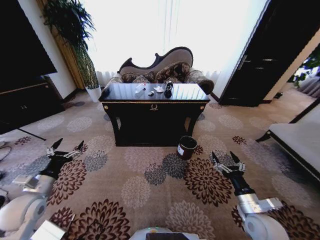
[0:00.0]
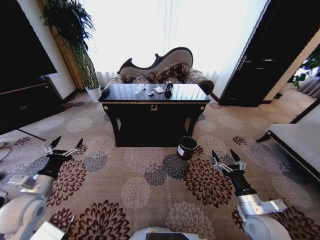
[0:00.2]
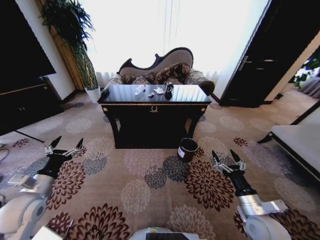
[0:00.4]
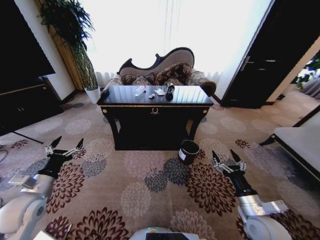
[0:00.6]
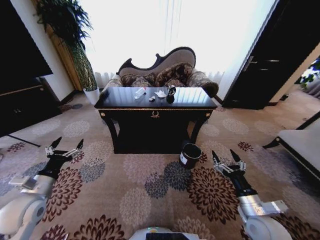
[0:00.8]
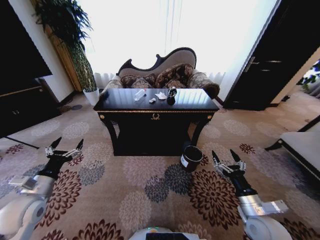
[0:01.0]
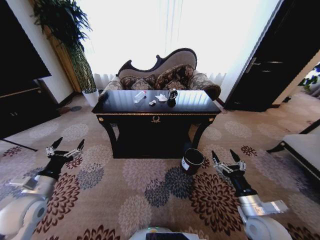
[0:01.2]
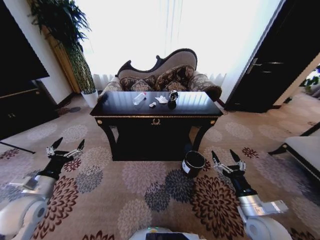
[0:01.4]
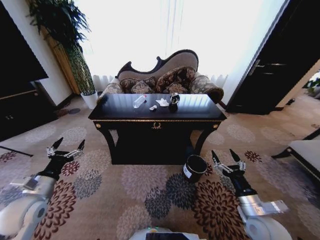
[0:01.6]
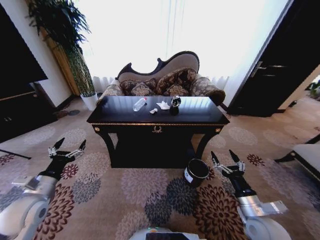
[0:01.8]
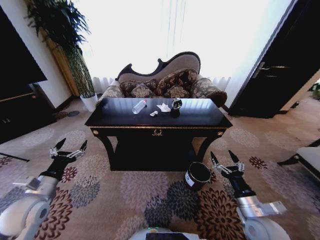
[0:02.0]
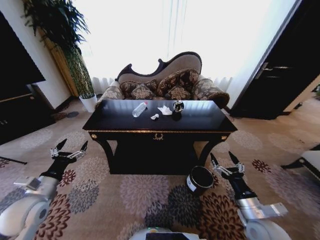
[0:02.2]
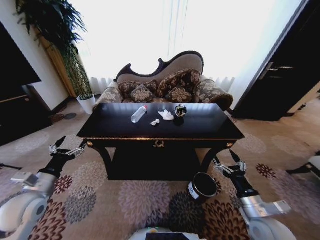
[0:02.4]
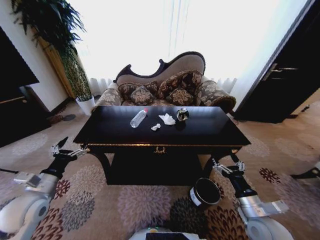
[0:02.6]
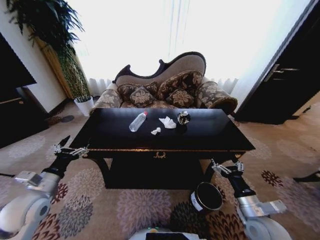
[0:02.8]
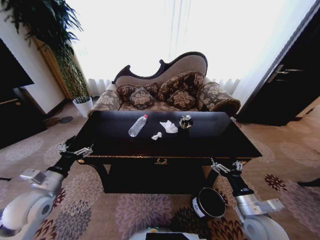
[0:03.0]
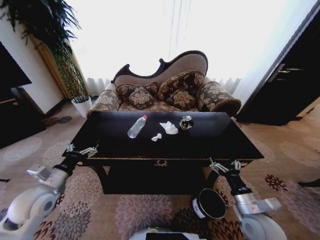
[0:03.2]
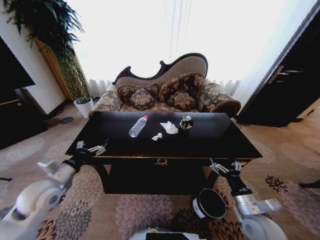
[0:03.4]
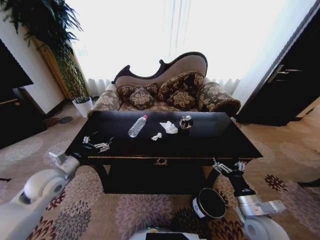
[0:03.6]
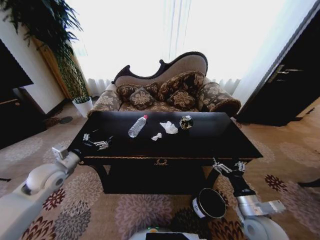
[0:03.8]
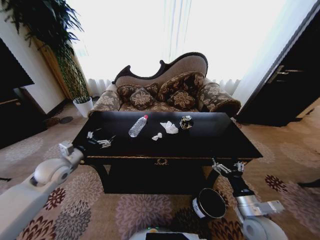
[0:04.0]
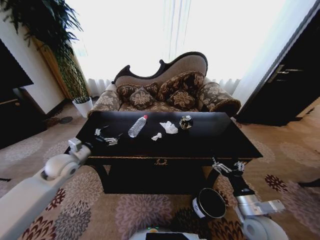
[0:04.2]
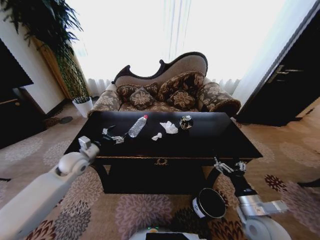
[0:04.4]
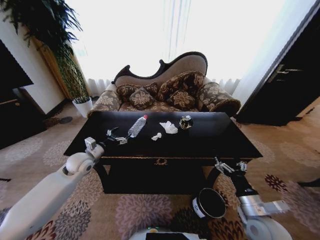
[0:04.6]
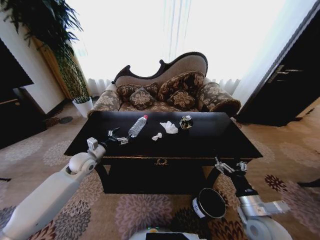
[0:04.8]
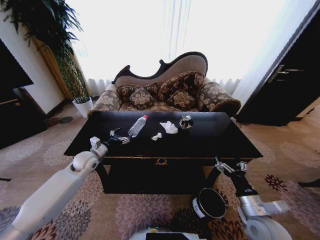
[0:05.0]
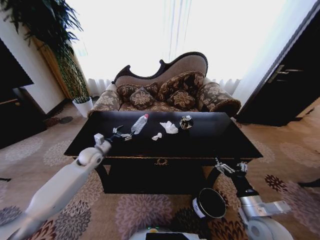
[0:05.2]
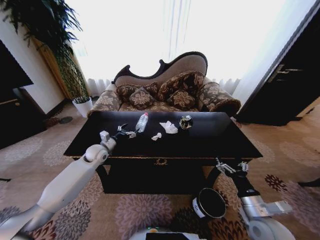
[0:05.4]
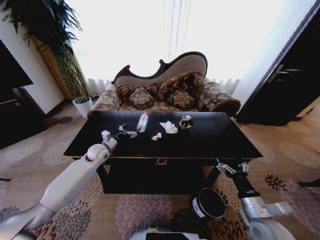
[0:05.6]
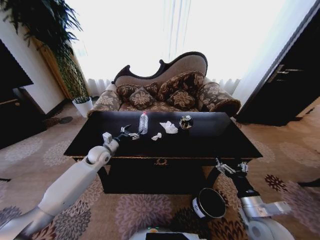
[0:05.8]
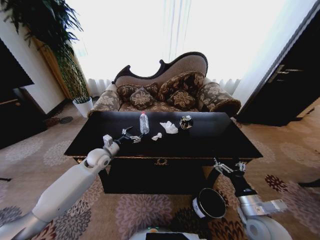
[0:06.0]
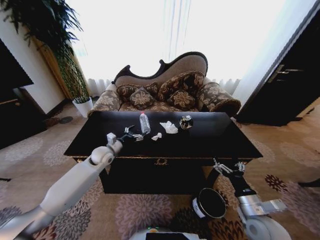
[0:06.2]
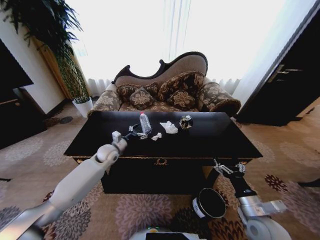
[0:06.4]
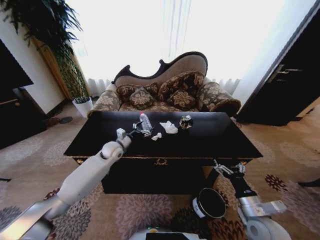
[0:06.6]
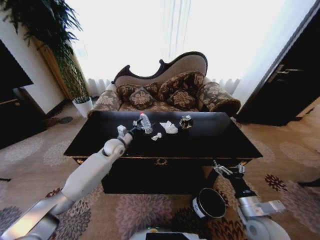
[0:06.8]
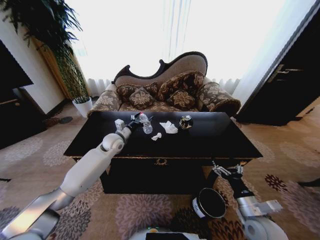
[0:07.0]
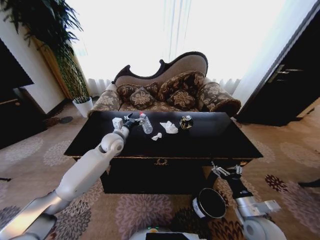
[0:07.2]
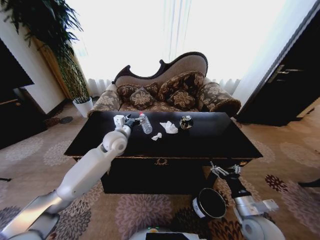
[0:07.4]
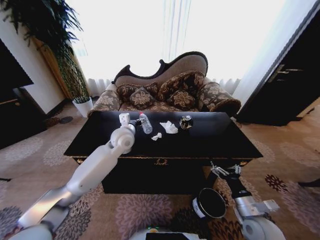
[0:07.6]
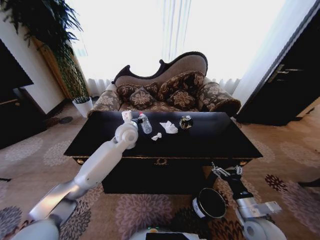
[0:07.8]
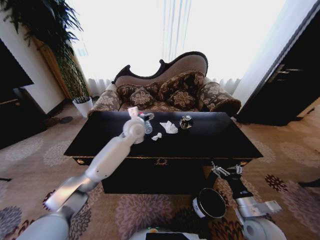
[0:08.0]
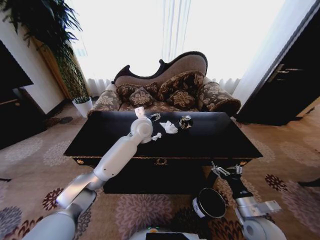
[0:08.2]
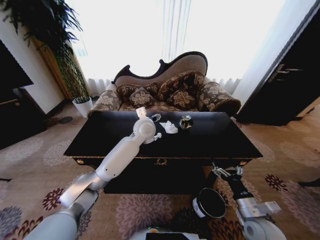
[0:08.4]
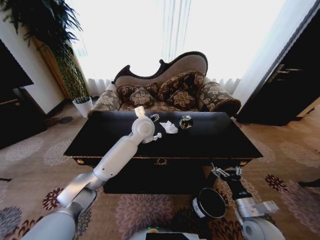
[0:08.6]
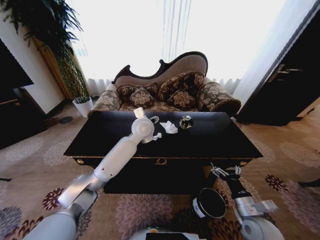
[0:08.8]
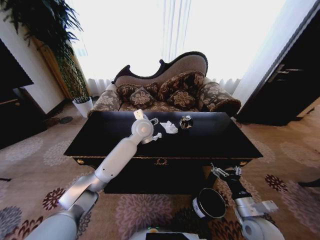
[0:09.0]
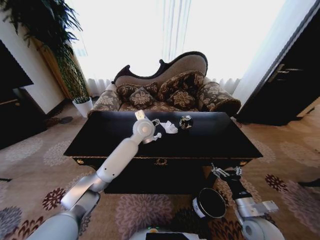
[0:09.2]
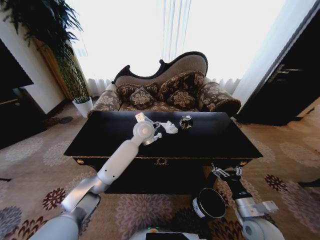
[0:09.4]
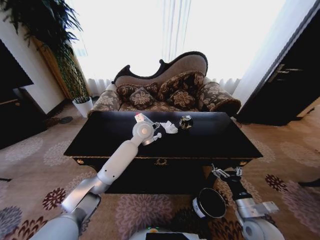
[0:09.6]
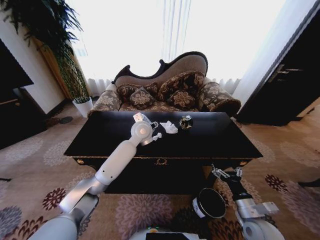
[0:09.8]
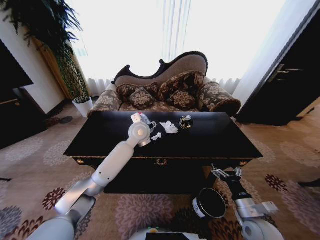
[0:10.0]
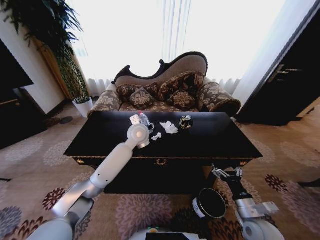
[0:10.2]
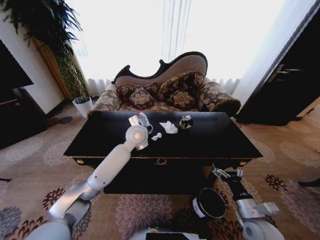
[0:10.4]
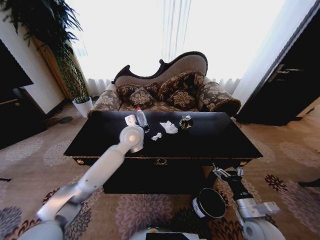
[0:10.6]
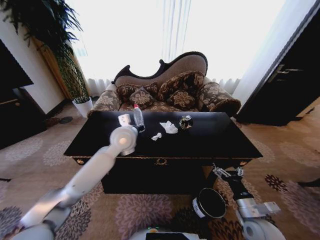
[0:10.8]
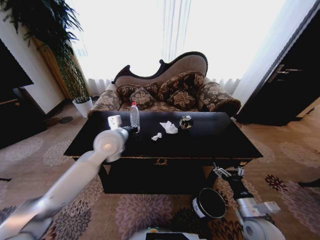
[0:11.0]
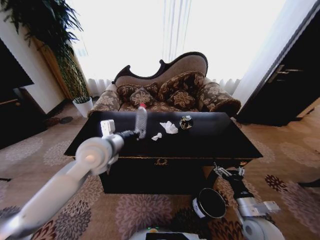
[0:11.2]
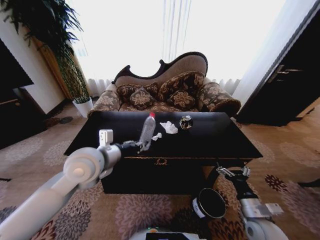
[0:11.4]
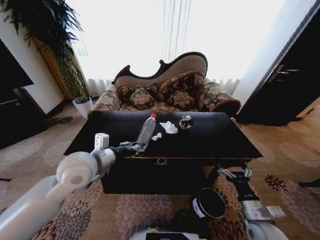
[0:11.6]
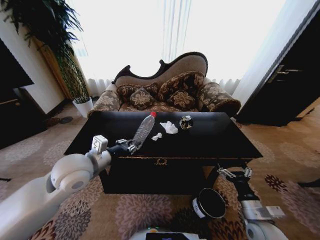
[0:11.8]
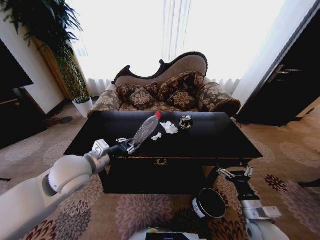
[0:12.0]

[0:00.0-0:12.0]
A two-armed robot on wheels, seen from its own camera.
Task of the whole recording: Move to the front of the table and place the trash on the table into the trash bin.
0:03.0 to 0:04.4: The left gripper travels forward by some 15 cm.
0:04.4 to 0:06.0: The left gripper is displaced to the right and forward by roughly 10 cm.
0:06.0 to 0:07.6: The left gripper travels to the right and upward by roughly 20 cm.
0:07.6 to 0:09.0: The left gripper goes some 10 cm to the right.
0:09.0 to 0:10.4: The left gripper closes.
0:10.4 to 0:12.0: The left gripper goes some 25 cm backward and to the left.

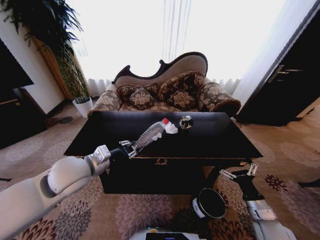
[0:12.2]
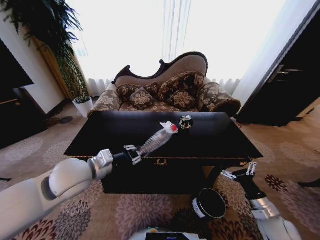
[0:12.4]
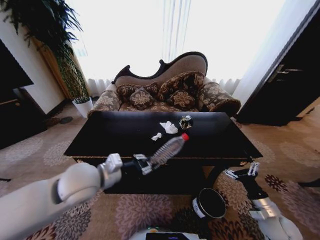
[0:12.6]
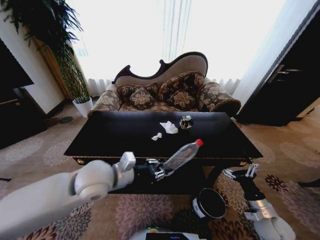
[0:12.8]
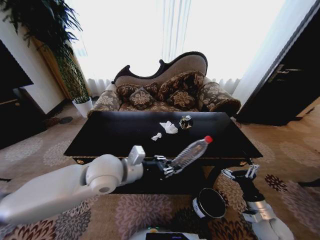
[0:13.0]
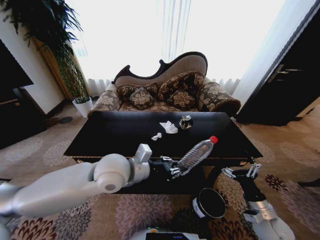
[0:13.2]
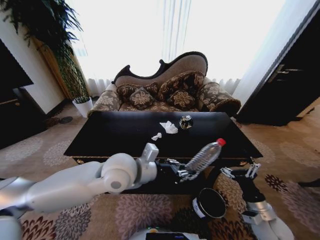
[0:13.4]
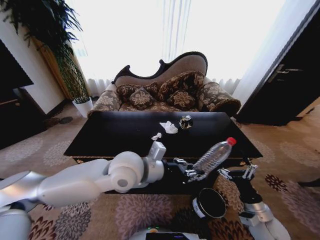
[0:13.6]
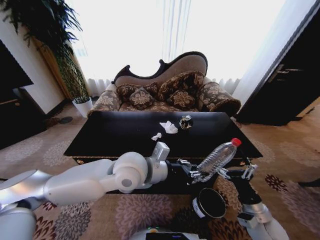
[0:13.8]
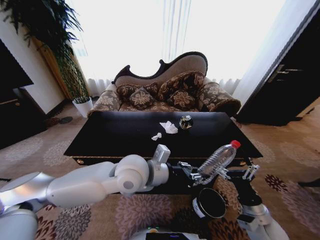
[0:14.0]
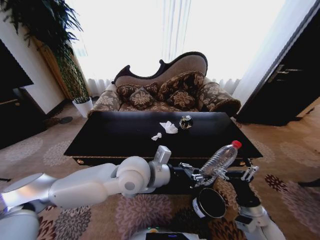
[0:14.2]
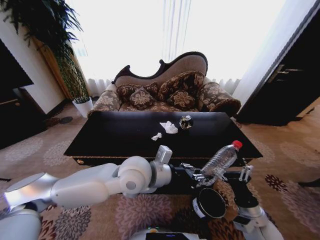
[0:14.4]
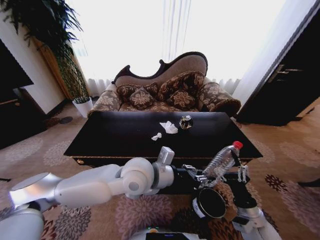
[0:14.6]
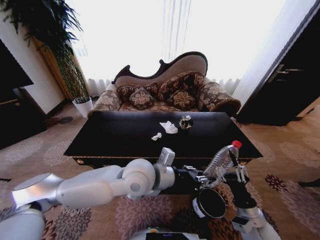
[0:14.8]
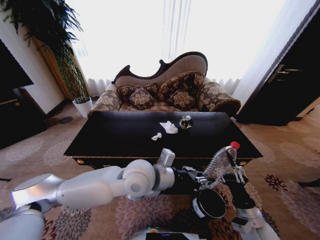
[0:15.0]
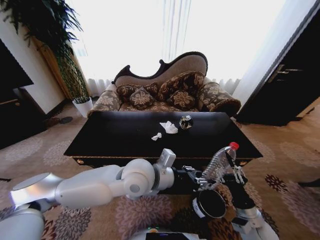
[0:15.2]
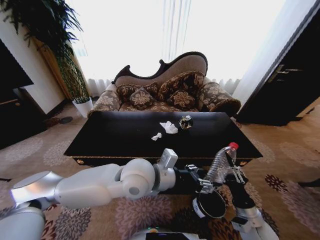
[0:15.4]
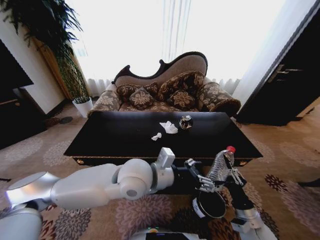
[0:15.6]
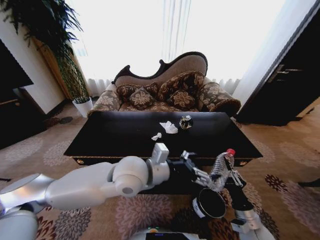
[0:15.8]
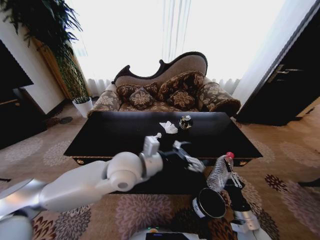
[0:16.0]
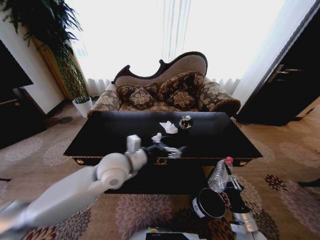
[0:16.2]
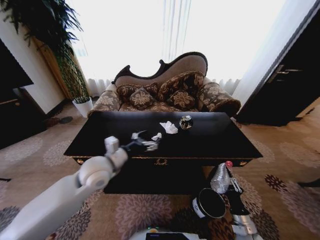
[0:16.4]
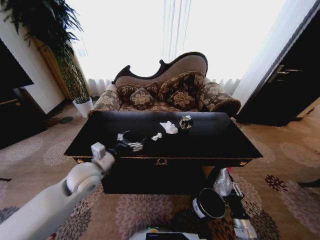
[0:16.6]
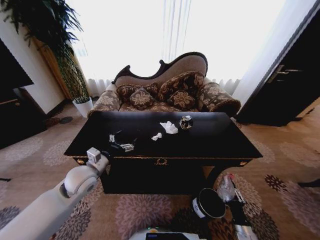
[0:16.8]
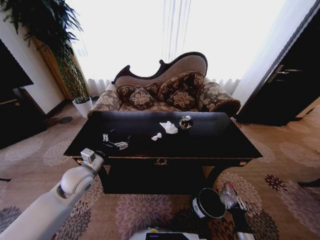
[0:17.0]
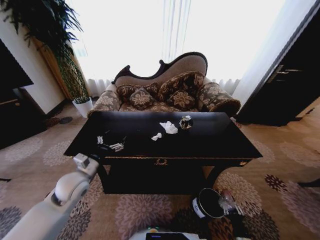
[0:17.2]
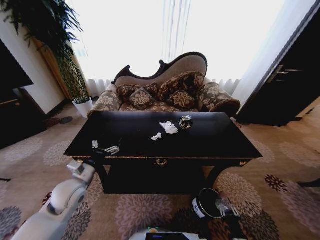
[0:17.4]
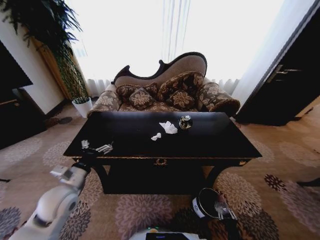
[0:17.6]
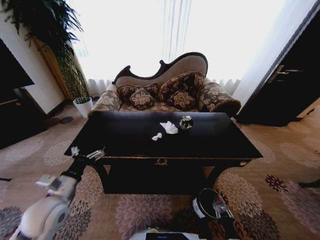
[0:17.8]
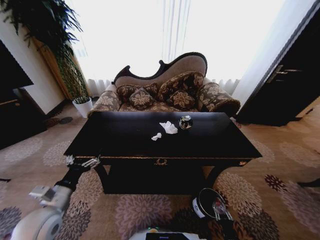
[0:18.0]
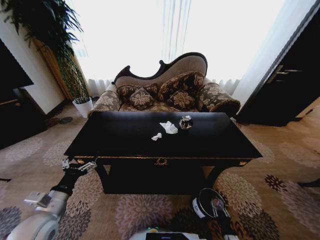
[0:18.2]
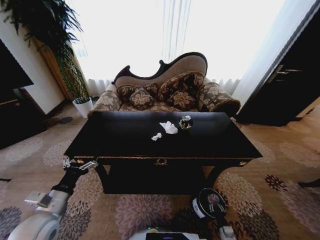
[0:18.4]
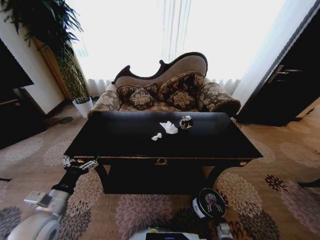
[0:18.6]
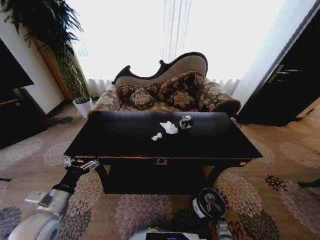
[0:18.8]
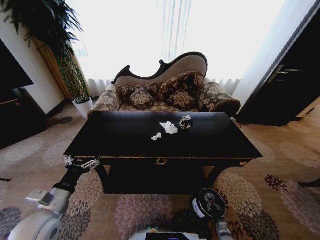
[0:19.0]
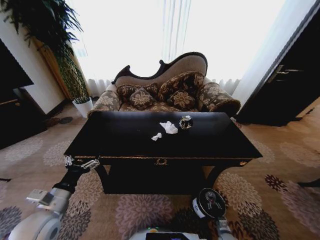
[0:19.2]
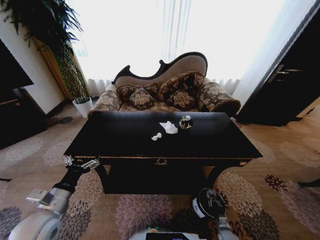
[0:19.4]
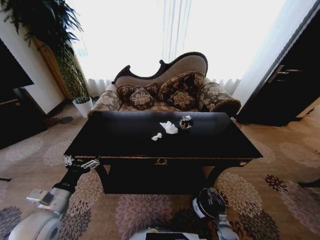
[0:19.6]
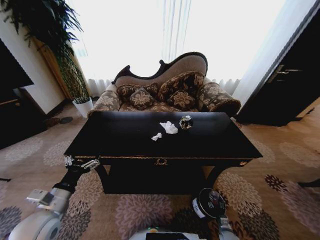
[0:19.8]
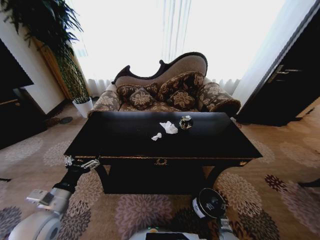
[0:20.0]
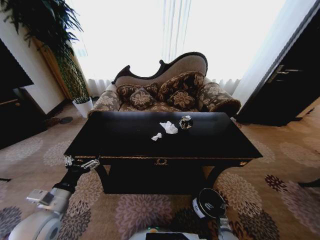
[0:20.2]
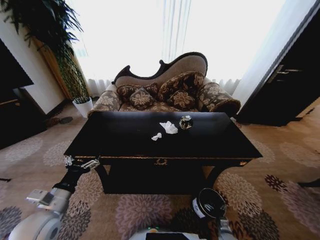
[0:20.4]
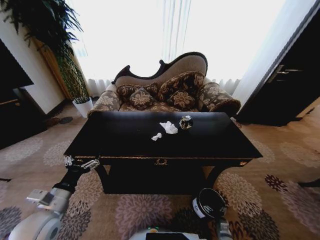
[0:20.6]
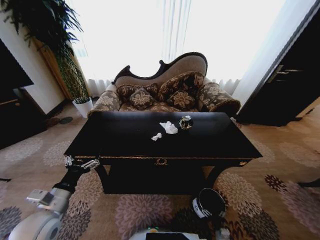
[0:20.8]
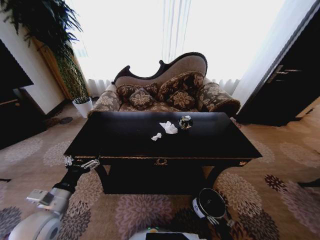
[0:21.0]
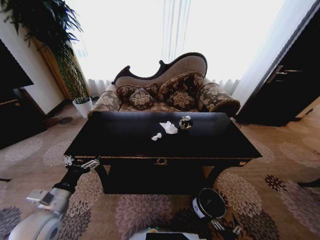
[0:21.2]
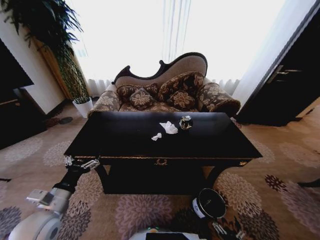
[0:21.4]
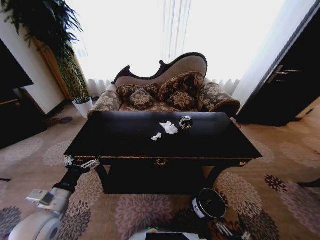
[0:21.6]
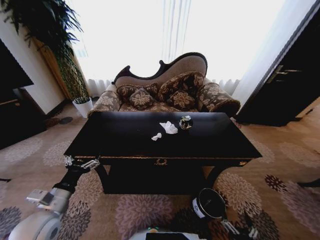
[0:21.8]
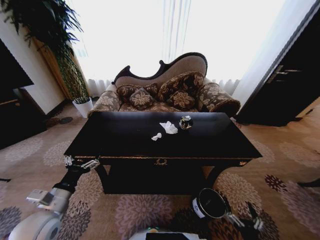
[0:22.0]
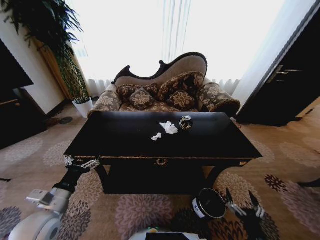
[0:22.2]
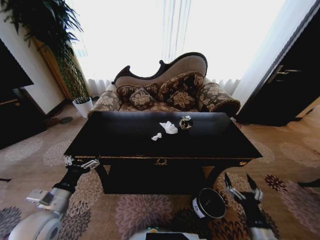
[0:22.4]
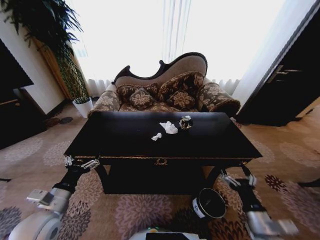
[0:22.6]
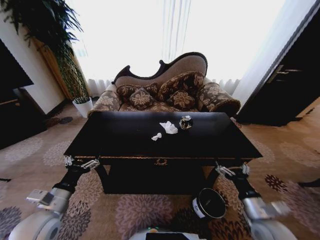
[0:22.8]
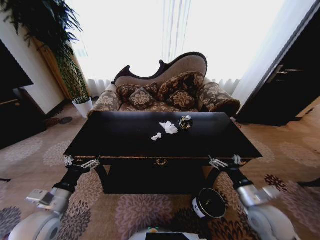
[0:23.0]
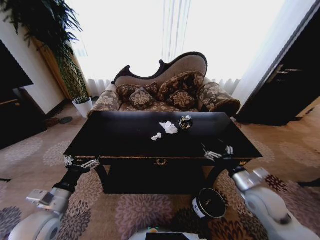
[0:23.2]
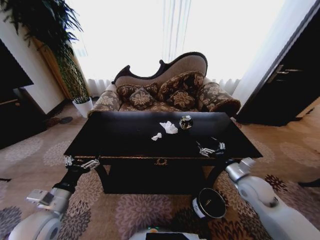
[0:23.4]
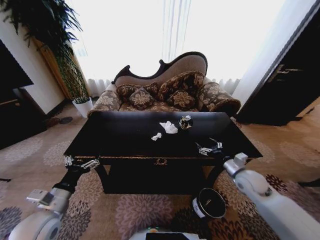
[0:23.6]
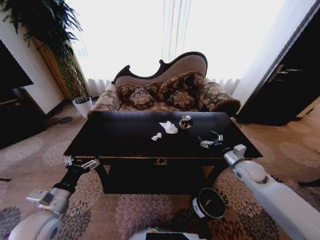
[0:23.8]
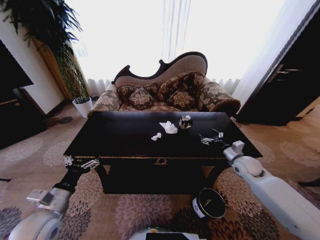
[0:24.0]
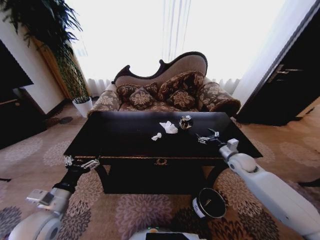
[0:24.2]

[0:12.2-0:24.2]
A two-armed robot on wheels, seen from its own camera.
Task of the whole recording: Move to the front of the table and place the trash on the table into the trash bin.
0:12.2 to 0:13.8: The left gripper heads to the right, covering roughly 15 cm.
0:13.8 to 0:15.2: The right gripper closes.
0:15.2 to 0:16.6: The left gripper goes some 20 cm to the left, and opens; the right gripper heads downward, covering approximately 10 cm.
0:16.6 to 0:18.2: The right gripper goes about 15 cm downward; the left gripper shifts about 20 cm backward, to the left and downward.
0:18.2 to 0:19.8: The right gripper moves forward and downward, approximately 10 cm.
0:19.8 to 0:21.2: The right gripper is displaced backward, upward and to the left by approximately 15 cm, and opens.
0:21.2 to 0:22.6: The right gripper shifts approximately 30 cm upward.
0:22.6 to 0:24.2: The right gripper shifts approximately 30 cm forward.
